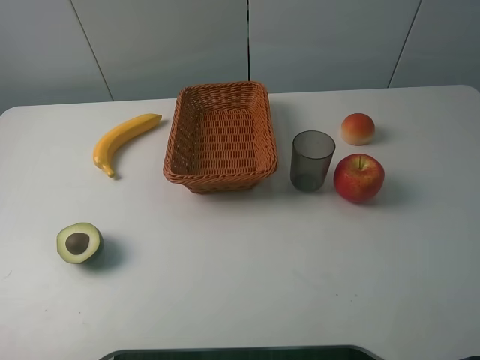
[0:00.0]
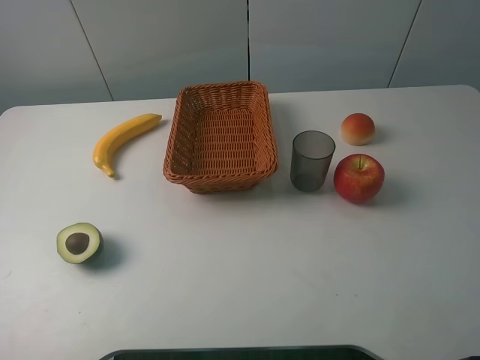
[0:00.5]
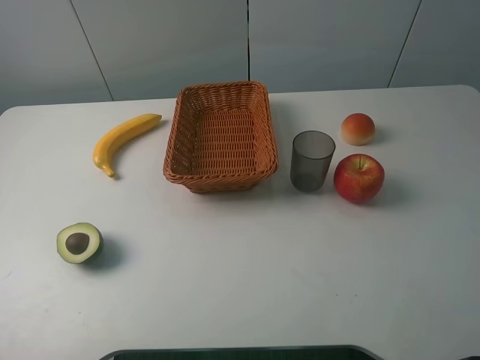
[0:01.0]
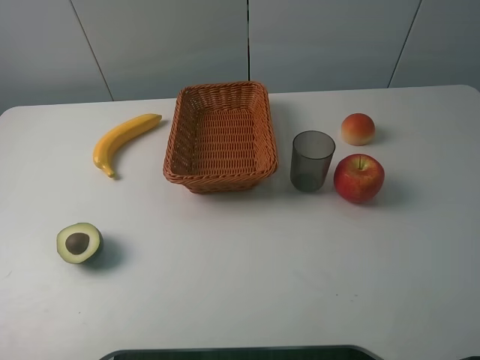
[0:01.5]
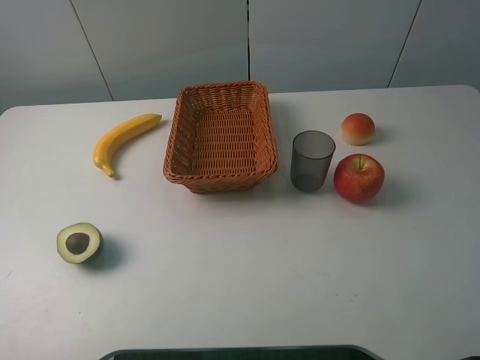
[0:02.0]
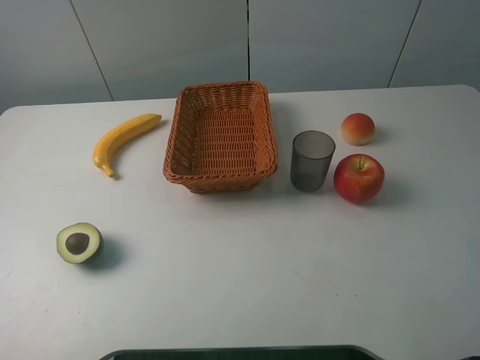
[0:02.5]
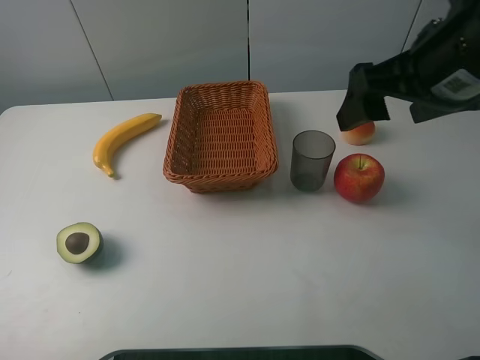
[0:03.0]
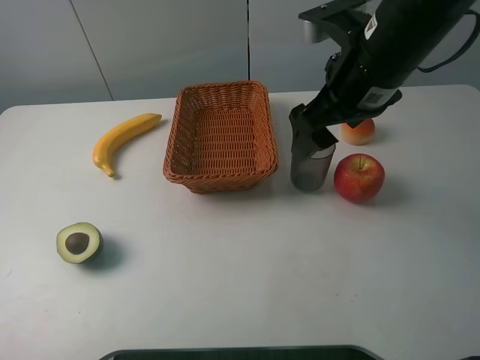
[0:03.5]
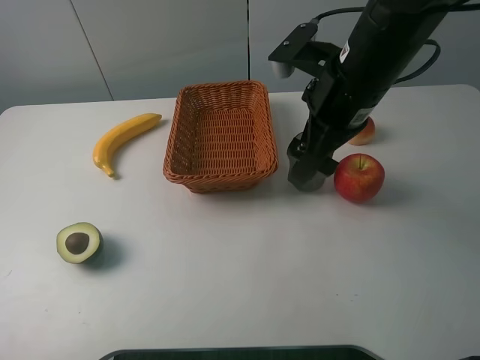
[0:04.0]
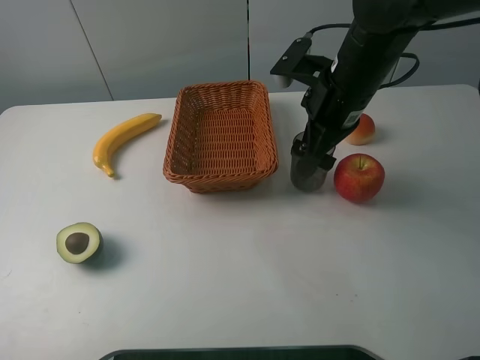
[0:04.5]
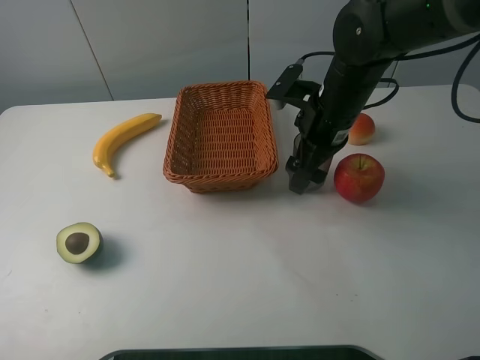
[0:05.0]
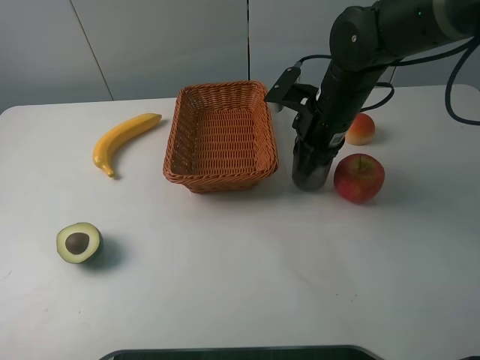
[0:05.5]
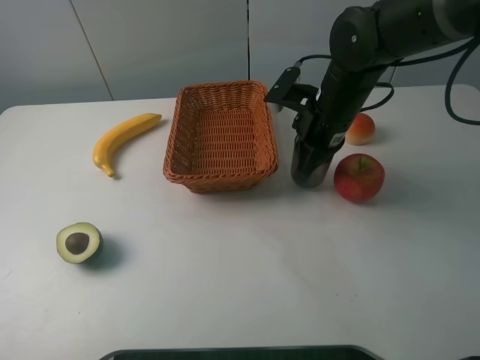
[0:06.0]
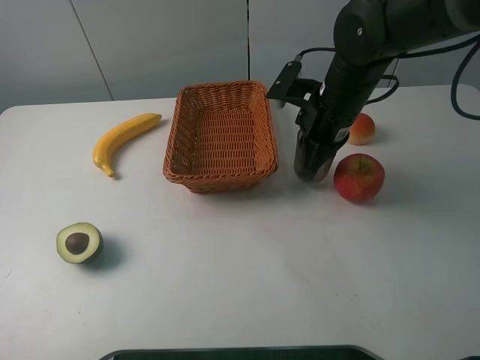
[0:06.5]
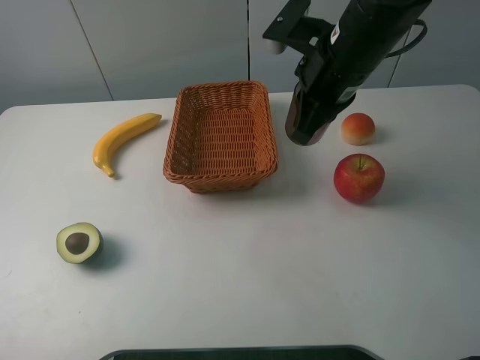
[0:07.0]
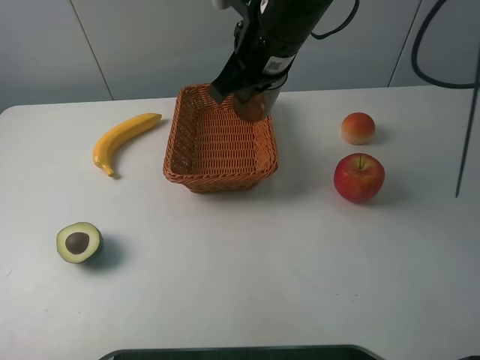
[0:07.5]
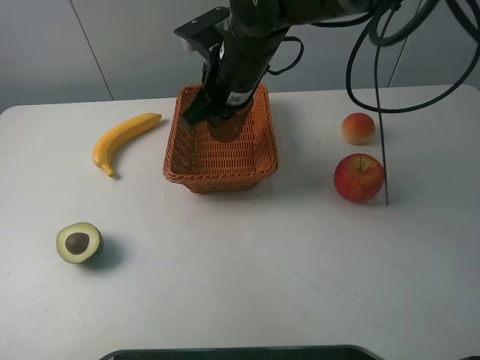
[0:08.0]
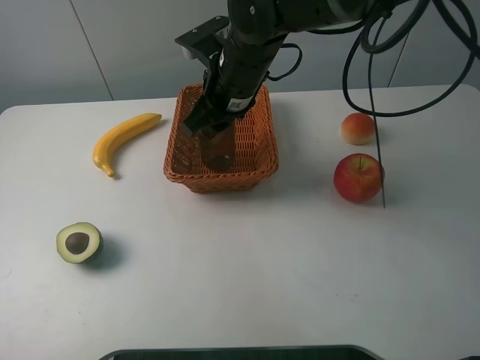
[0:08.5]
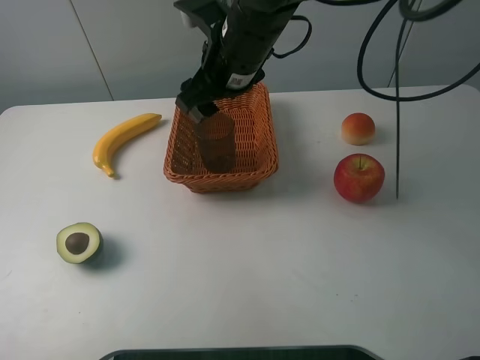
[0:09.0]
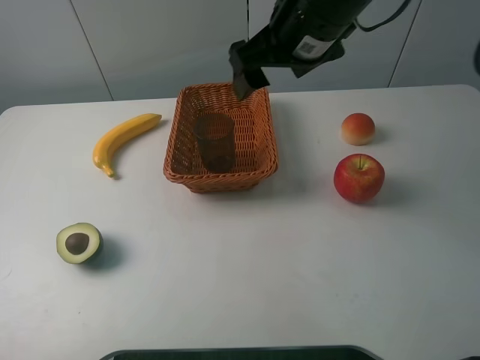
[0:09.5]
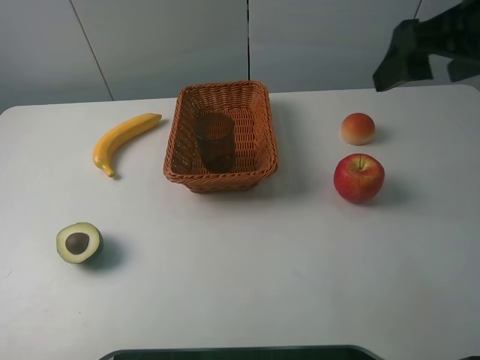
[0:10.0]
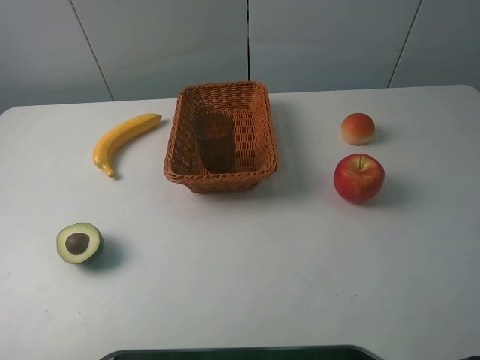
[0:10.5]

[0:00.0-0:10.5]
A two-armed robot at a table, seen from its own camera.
0:02.0 to 0:04.0: The right gripper heads forward, to the left and downward, covering roughly 30 cm.
0:04.0 to 0:06.5: The right gripper heads downward, covering some 5 cm, and closes.
0:06.5 to 0:08.5: The right gripper goes some 10 cm to the left, and opens.
0:08.5 to 0:10.5: The right gripper is displaced to the right, backward and upward by roughly 40 cm, and opens up.

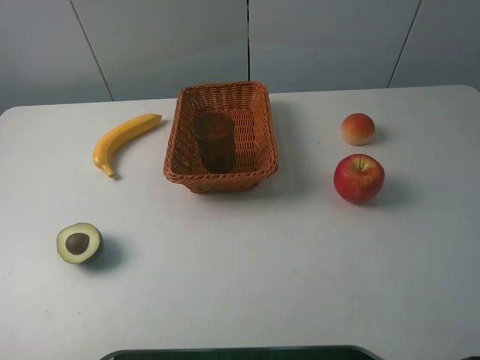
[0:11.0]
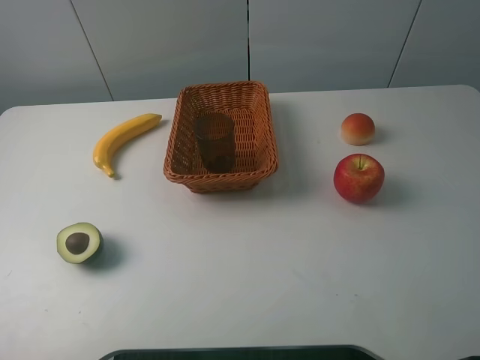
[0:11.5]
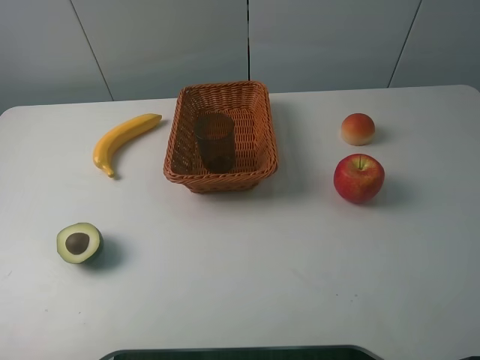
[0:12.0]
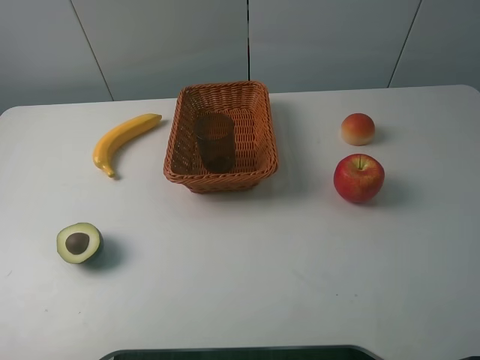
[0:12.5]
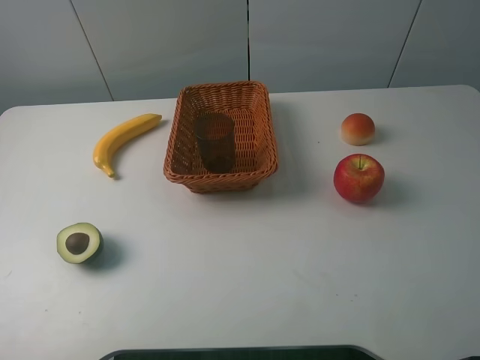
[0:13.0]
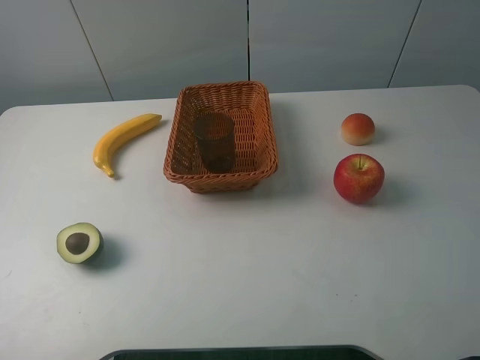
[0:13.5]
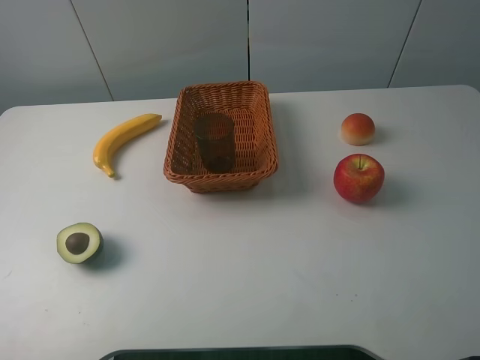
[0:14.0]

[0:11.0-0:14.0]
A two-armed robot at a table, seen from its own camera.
0:12.5 to 0:14.0: The two grippers keep their place.
